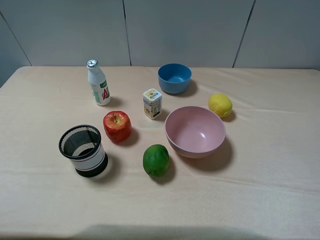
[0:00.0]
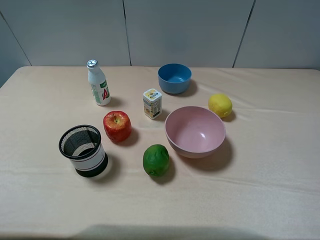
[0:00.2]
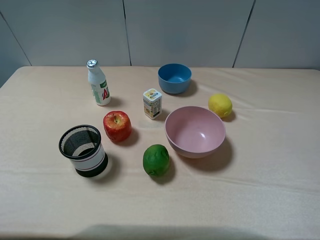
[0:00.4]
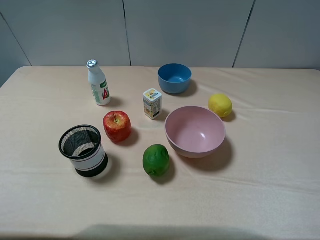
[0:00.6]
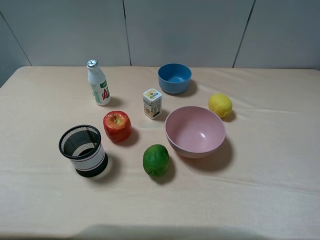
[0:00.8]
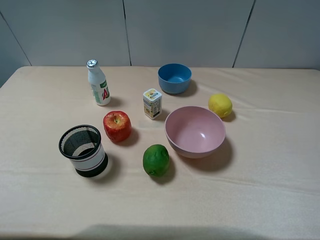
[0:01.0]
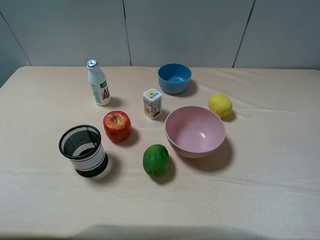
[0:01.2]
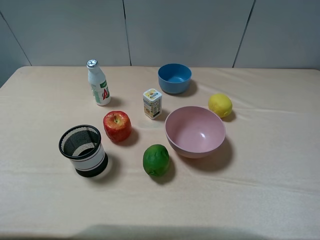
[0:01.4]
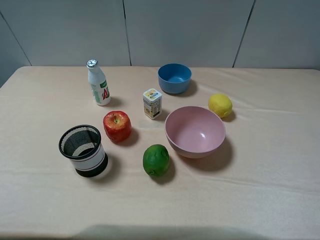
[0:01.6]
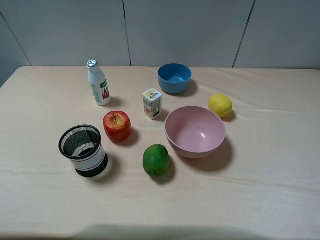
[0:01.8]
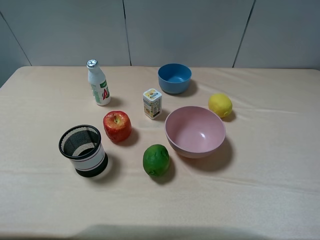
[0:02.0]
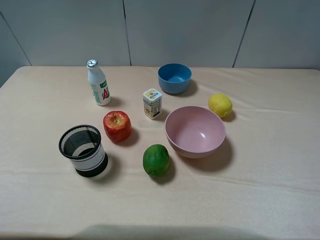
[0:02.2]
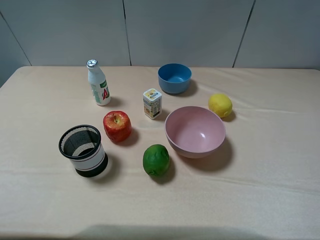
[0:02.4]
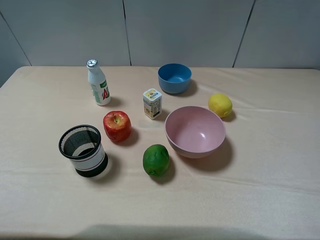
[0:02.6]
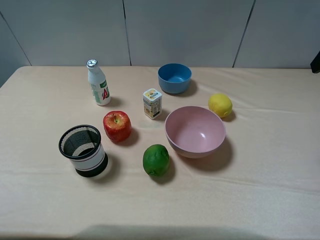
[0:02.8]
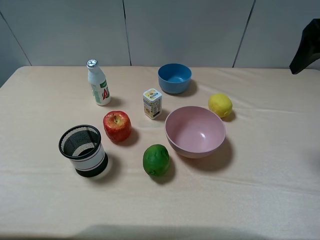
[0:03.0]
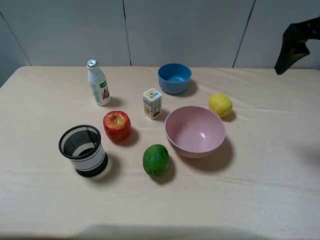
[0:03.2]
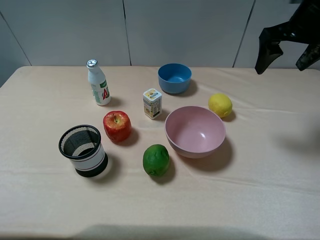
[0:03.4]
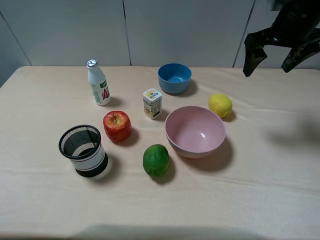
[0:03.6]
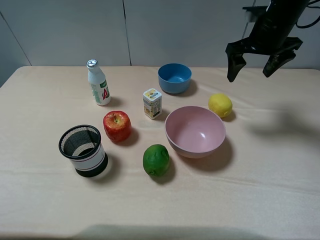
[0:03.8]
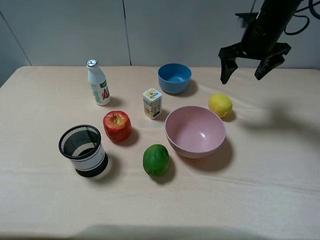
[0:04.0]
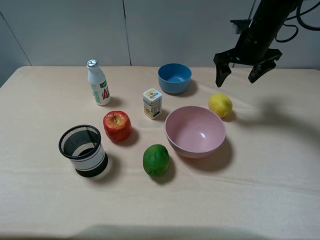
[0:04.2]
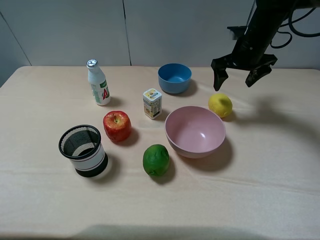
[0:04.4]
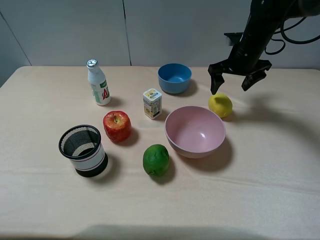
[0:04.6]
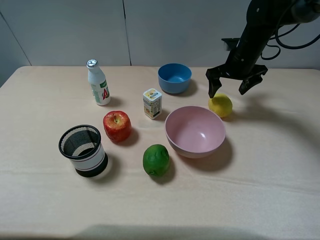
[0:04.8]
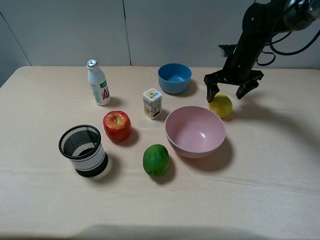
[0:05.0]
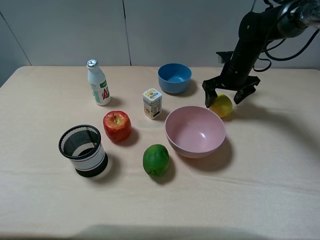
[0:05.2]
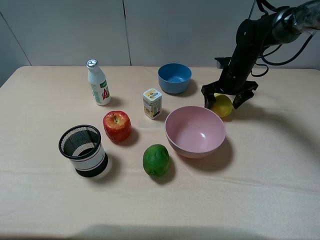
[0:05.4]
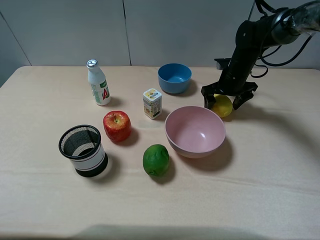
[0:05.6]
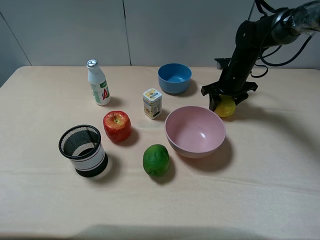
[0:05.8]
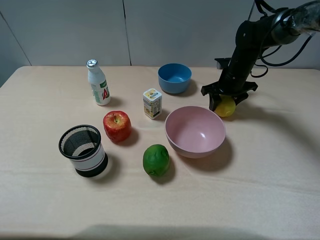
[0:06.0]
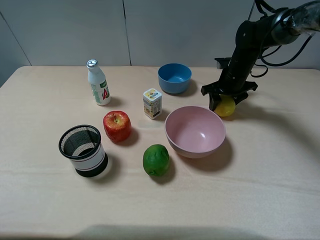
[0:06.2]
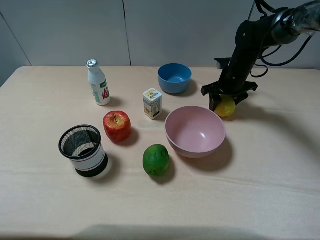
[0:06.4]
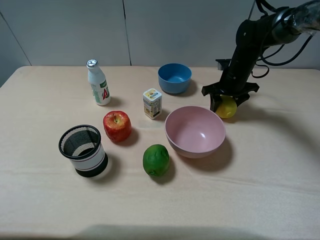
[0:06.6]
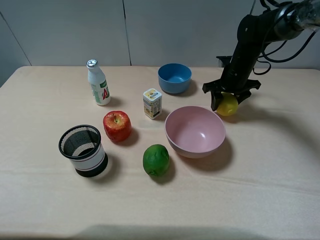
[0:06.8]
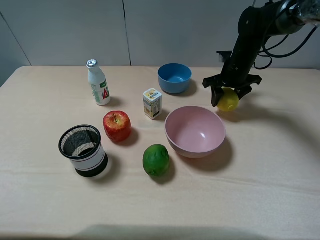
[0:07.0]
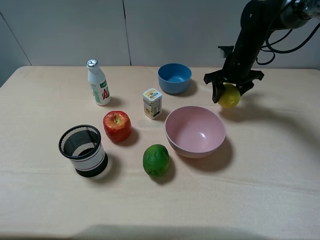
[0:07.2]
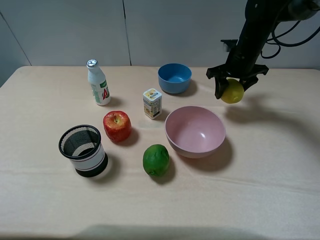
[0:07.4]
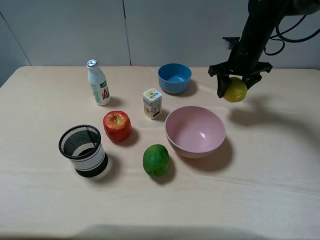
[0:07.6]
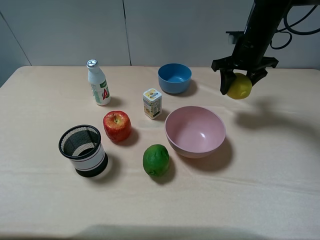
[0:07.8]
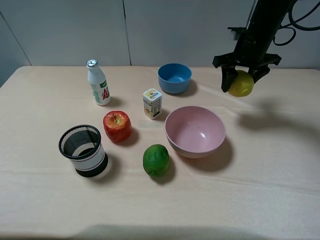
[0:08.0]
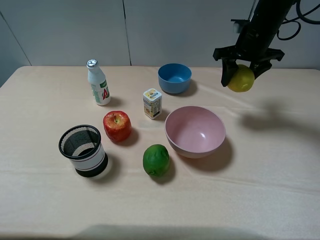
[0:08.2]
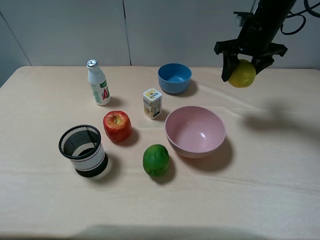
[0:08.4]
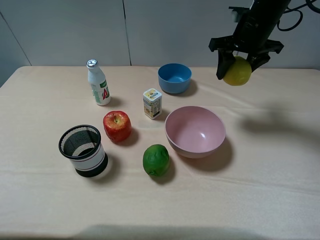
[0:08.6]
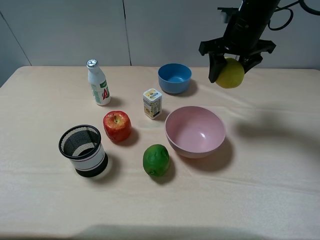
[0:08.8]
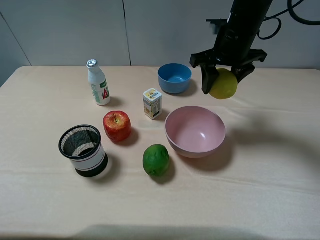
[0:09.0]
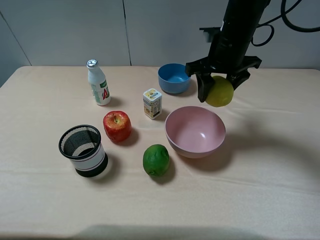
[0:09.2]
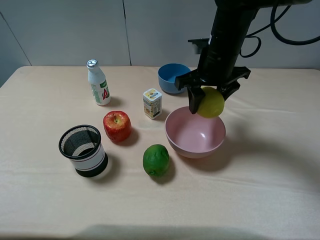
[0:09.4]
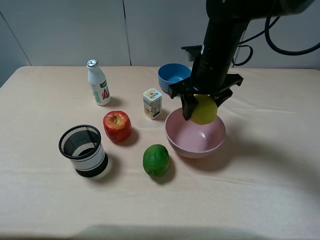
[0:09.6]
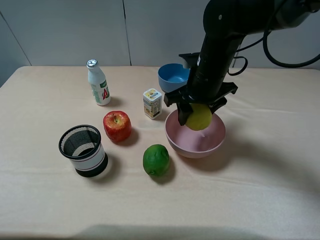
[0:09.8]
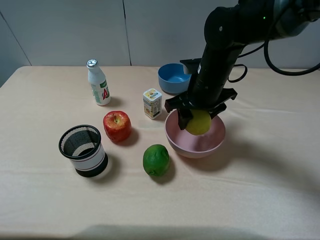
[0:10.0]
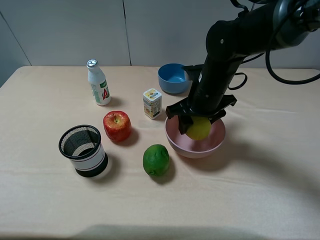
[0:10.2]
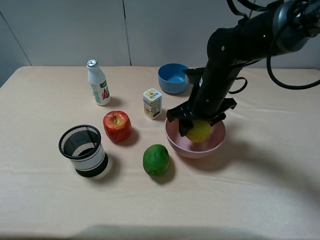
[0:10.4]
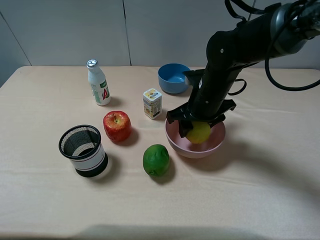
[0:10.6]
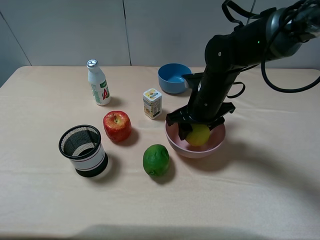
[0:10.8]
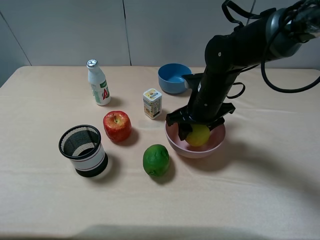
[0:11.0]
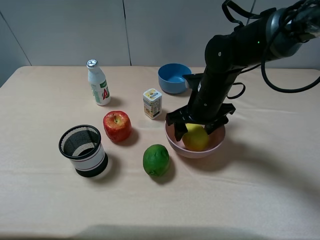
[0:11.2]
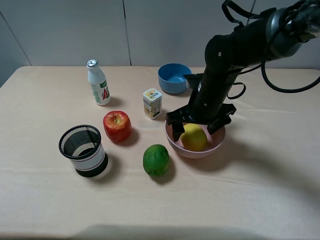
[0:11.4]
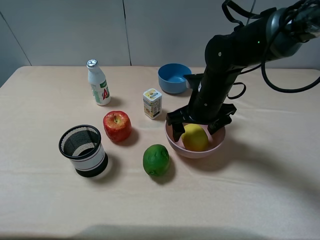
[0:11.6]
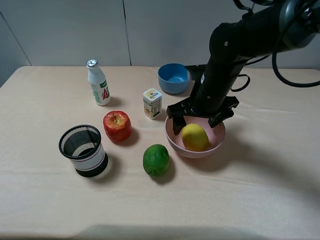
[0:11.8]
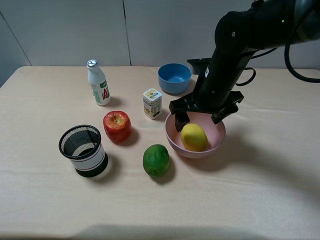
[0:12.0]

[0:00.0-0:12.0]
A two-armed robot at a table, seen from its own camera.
Task of the whole recording: pick up an item with a gripper and place it in a random container on the table.
Step, 0:00.0 to 0:05.8: Grasp the yellow lemon with the right gripper.
Step, 0:06.0 to 0:11.4: Place the yellow lemon into the pink bowl with the right gripper.
0:01.6 to 0:03.0: The right gripper heads forward, covering approximately 20 cm.
0:03.0 to 0:04.4: The right gripper heads downward, forward and to the left, covering approximately 20 cm.
0:04.4 to 0:06.0: The right gripper goes approximately 10 cm downward, and closes its fingers.
0:06.0 to 0:07.6: The right gripper heads upward, covering about 5 cm.
0:07.6 to 0:09.0: The right gripper goes about 10 cm backward, to the left and upward.
0:09.0 to 0:10.4: The right gripper is displaced downward and backward by some 10 cm.
0:10.4 to 0:12.0: The right gripper opens.

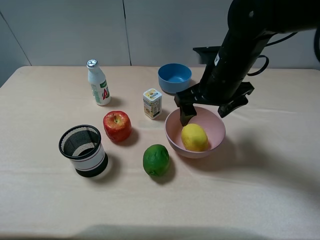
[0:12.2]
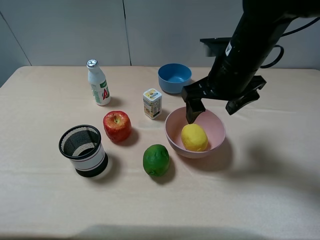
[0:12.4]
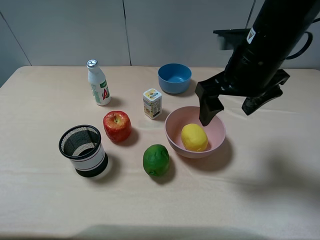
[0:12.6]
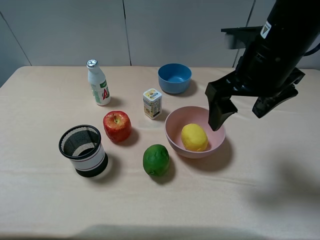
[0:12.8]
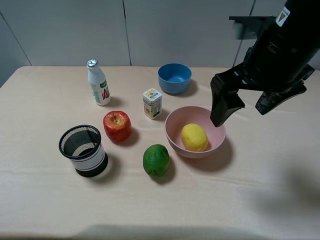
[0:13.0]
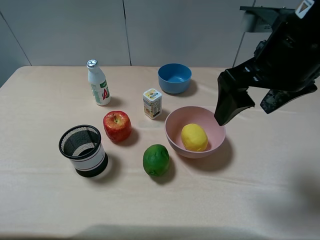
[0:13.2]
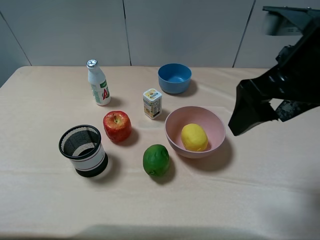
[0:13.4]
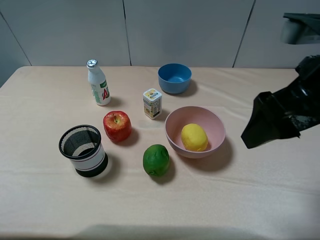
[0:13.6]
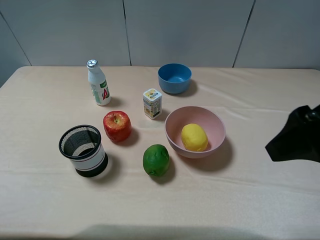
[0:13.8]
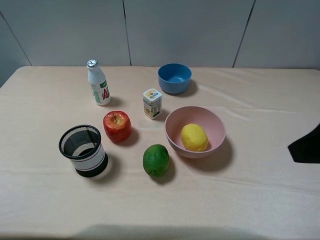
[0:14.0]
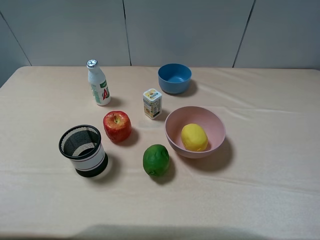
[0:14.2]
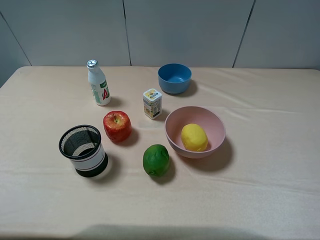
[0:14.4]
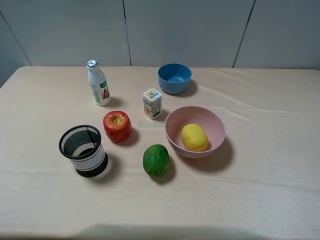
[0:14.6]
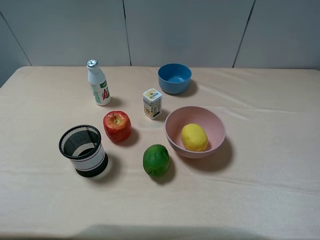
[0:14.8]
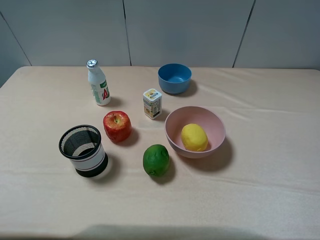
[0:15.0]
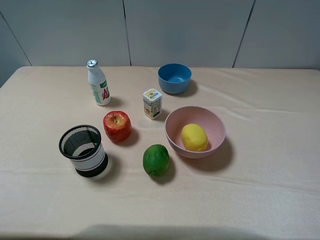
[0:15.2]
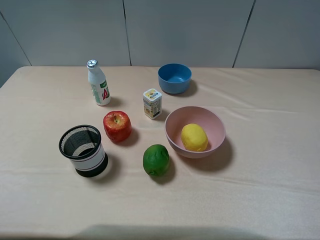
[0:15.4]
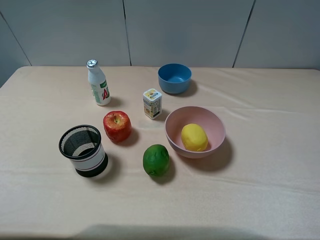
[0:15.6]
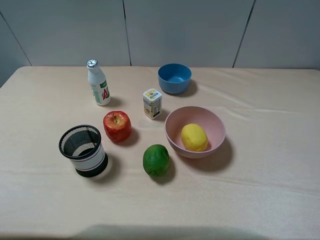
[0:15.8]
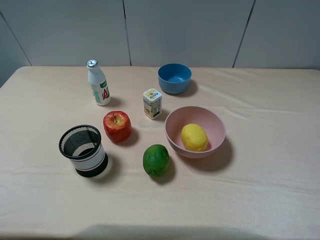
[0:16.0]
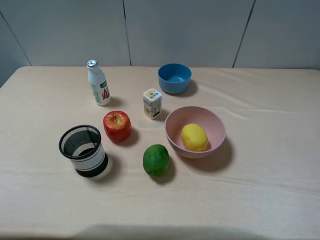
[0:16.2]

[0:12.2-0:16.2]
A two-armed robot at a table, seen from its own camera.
Task of the whole recording: pick up an item with a gripper and place it in a random container on the table.
0:12.2 to 0:13.6: The right gripper goes some 20 cm backward, upward and to the right.
0:13.6 to 0:14.8: The right gripper is displaced backward and to the right by some 20 cm.
0:14.8 to 0:16.2: Both grippers stay put.

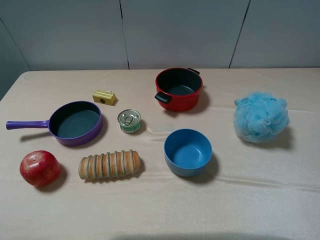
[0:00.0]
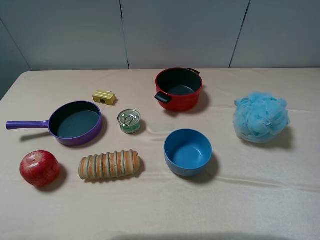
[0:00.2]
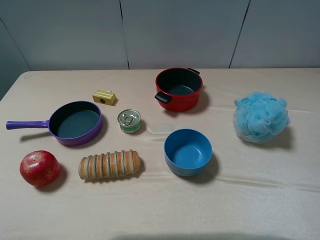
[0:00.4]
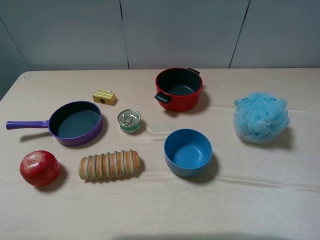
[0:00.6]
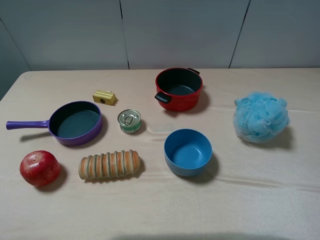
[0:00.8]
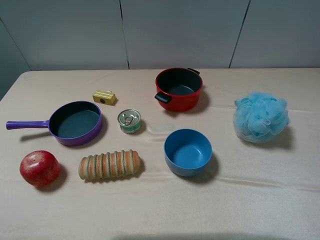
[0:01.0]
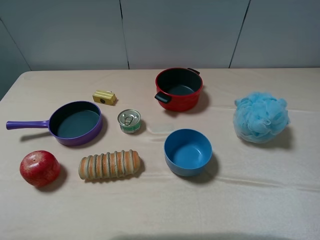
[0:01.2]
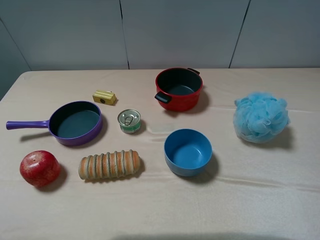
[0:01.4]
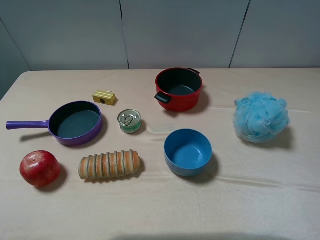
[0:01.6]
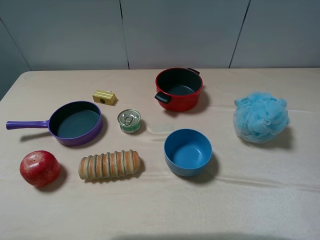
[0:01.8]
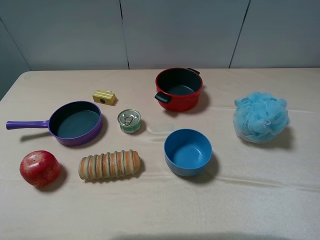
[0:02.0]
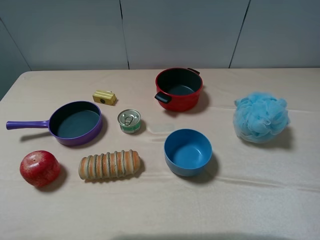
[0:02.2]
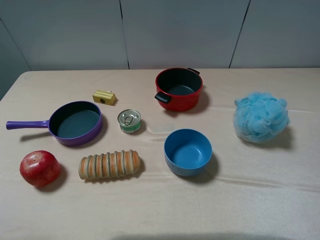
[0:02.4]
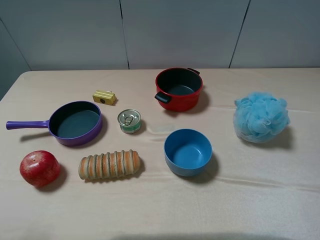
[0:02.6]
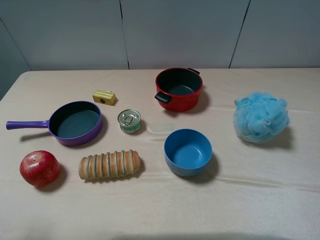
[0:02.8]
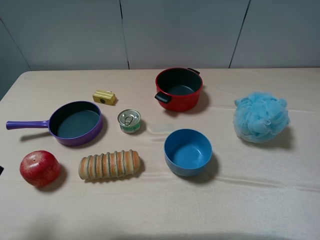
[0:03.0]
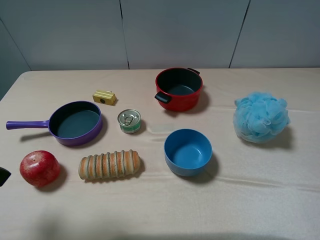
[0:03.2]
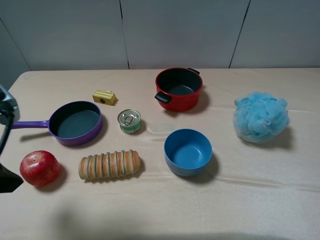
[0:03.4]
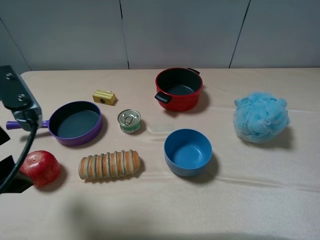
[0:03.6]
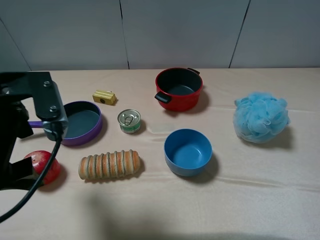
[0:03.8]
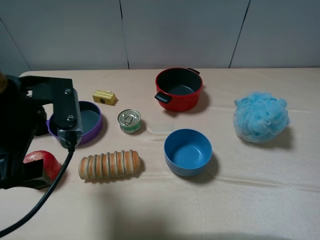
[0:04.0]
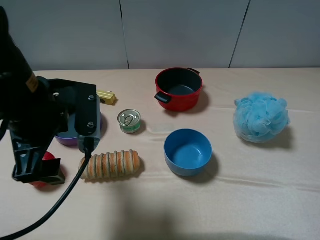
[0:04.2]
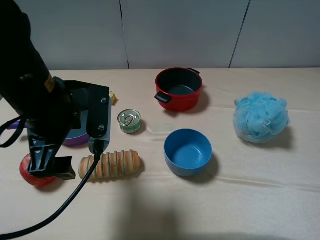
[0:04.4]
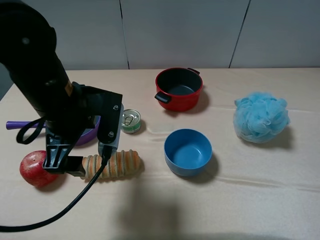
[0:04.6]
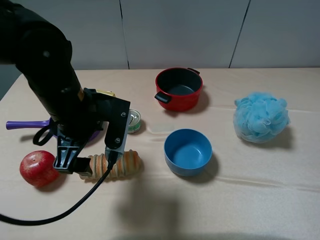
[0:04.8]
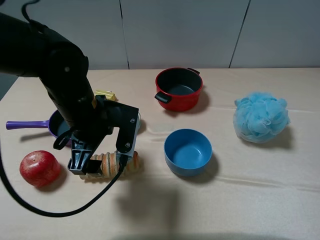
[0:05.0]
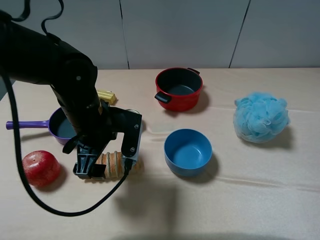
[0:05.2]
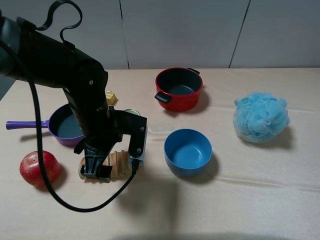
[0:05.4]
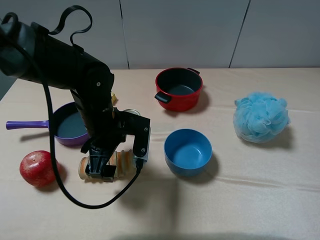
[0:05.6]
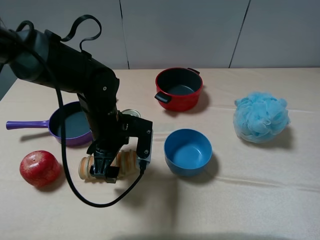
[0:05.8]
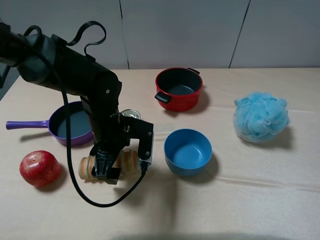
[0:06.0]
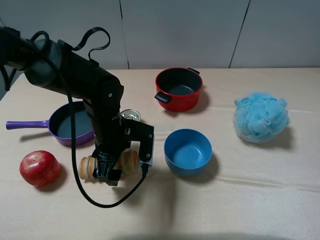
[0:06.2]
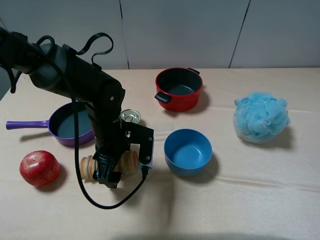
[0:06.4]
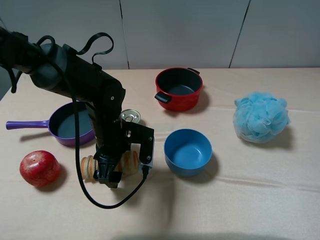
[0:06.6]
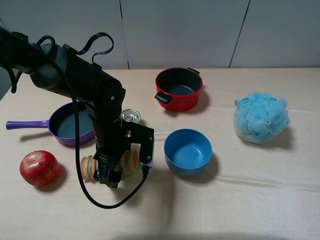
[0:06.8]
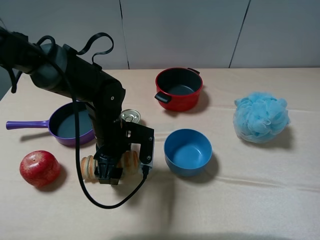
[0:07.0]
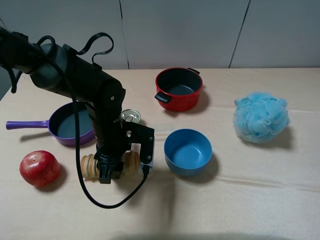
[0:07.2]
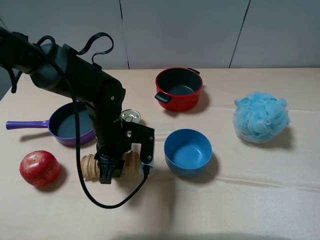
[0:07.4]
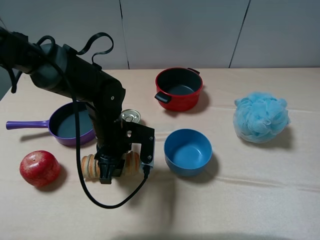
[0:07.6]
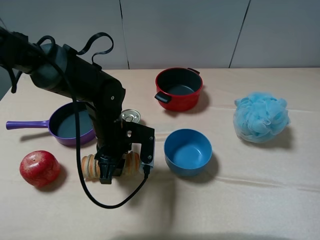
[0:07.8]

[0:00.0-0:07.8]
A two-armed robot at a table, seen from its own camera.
Task of the whole recording: pick up an item with a gripper and place it in a random container on the table.
Step, 0:00.0 to 0:07.6: Grasp the long bread with the left gripper.
0:00.0 to 0:01.6: Both grippers stay put.
0:01.6 to 0:03.2: The left gripper travels forward by roughly 10 cm.
0:03.2 to 0:04.6: The left gripper goes roughly 20 cm to the right, forward and downward.
0:04.6 to 0:06.2: The left gripper moves downward, approximately 10 cm.
0:06.2 to 0:07.8: The left gripper closes its fingers.
